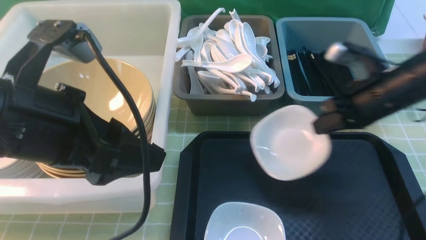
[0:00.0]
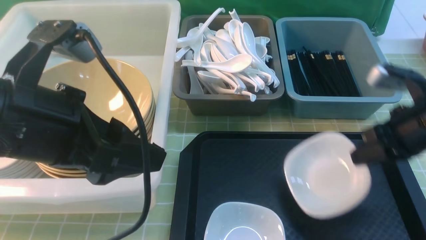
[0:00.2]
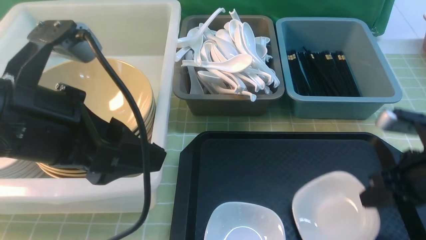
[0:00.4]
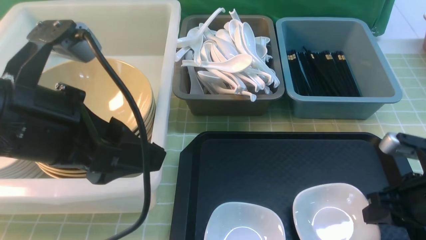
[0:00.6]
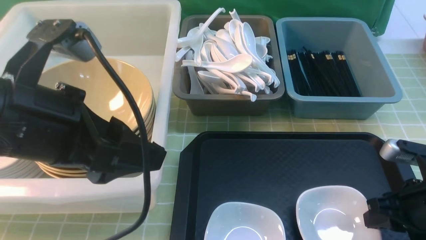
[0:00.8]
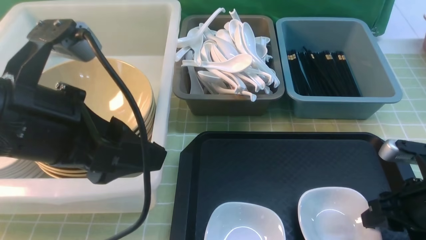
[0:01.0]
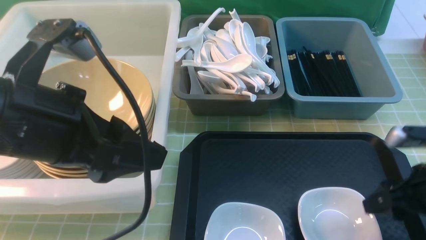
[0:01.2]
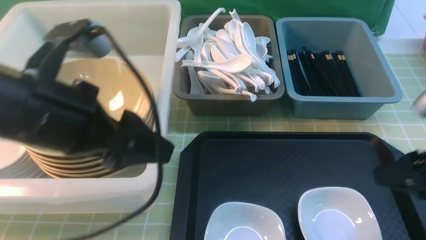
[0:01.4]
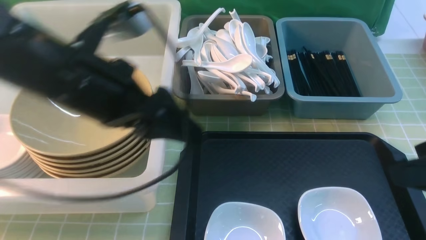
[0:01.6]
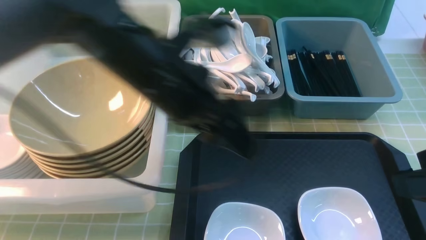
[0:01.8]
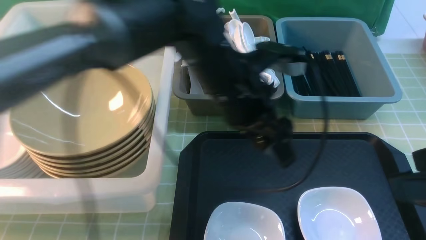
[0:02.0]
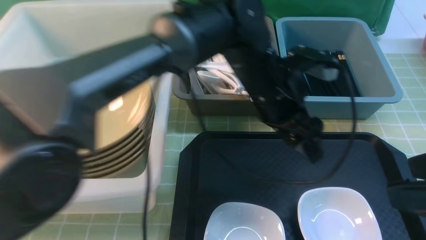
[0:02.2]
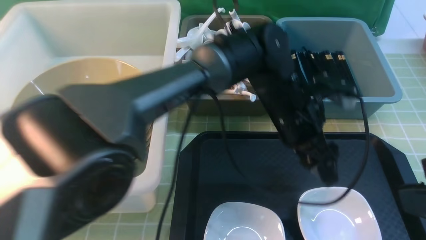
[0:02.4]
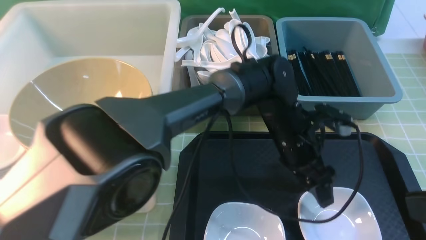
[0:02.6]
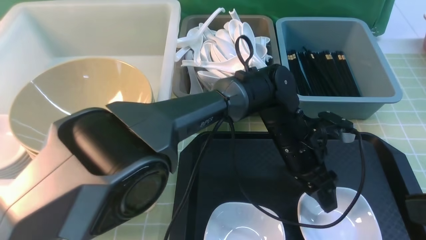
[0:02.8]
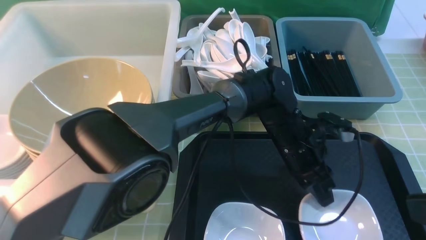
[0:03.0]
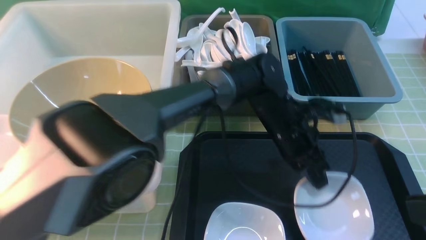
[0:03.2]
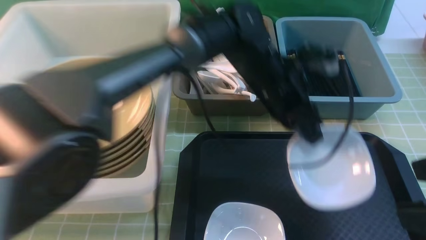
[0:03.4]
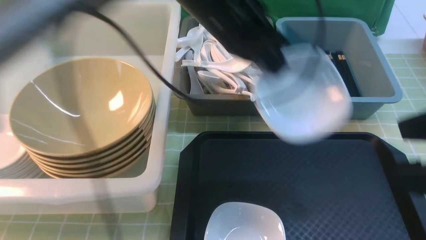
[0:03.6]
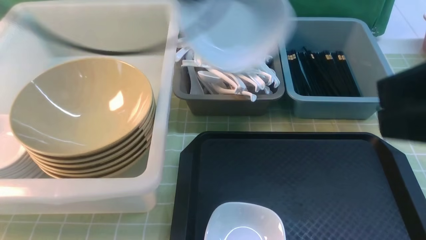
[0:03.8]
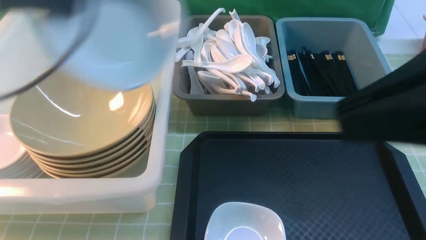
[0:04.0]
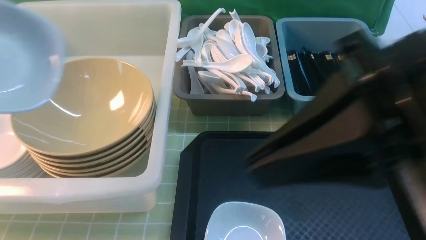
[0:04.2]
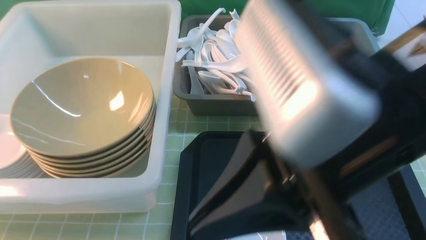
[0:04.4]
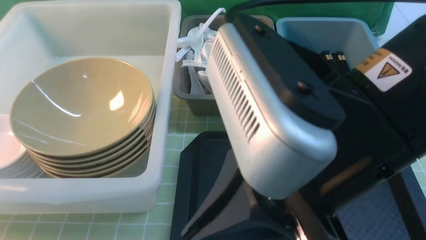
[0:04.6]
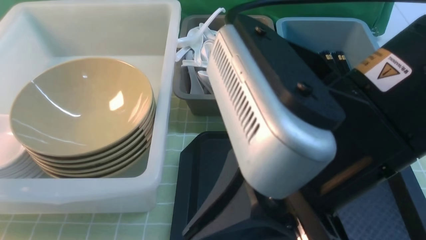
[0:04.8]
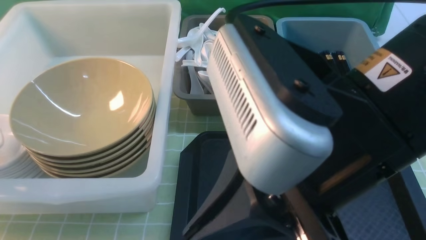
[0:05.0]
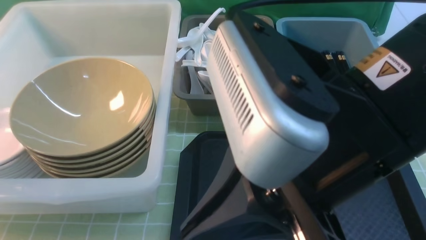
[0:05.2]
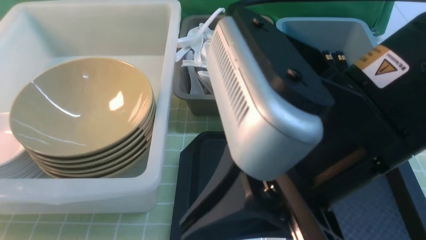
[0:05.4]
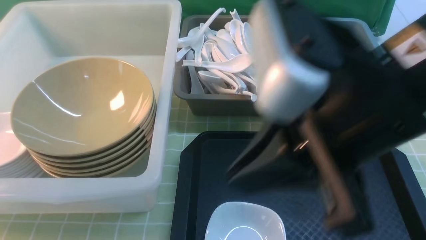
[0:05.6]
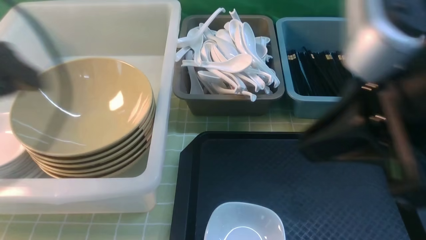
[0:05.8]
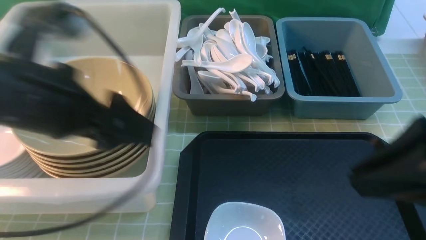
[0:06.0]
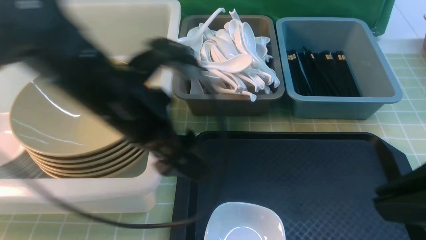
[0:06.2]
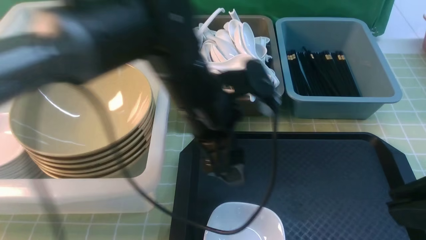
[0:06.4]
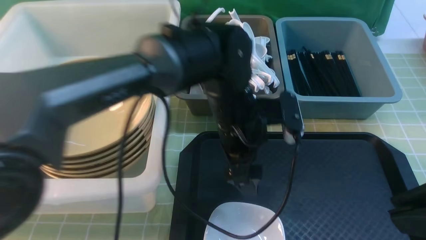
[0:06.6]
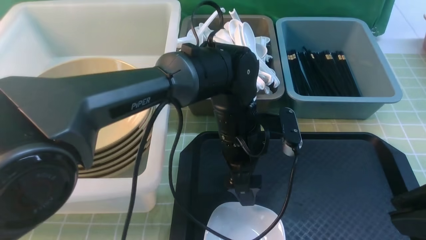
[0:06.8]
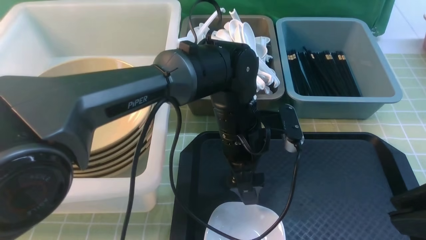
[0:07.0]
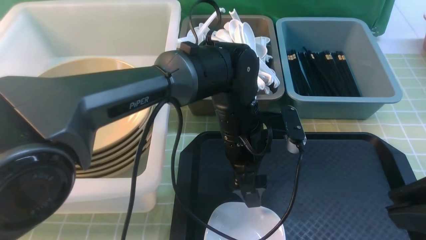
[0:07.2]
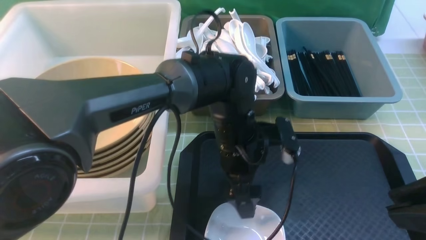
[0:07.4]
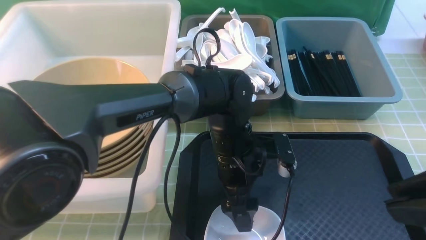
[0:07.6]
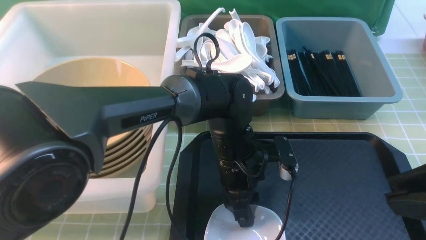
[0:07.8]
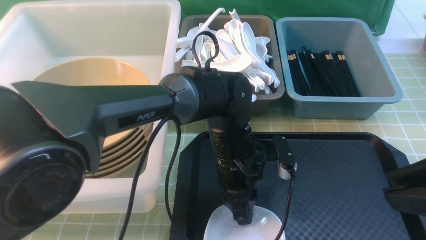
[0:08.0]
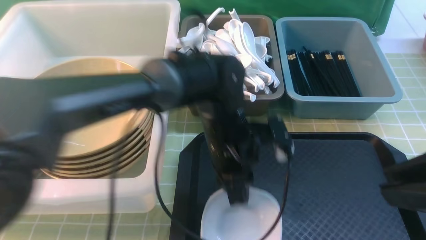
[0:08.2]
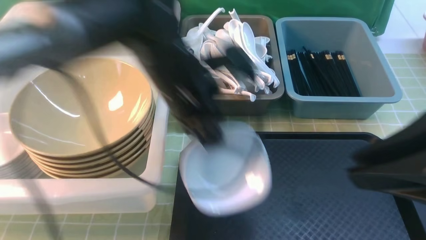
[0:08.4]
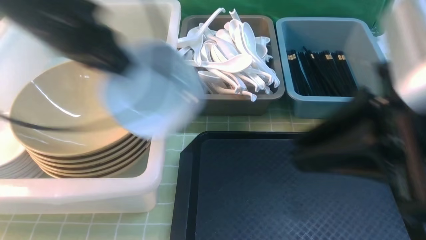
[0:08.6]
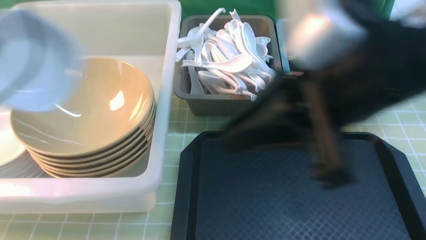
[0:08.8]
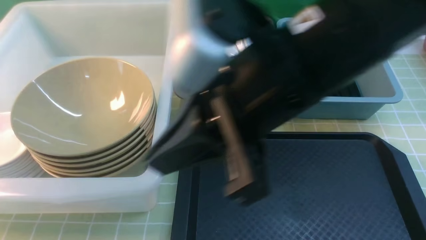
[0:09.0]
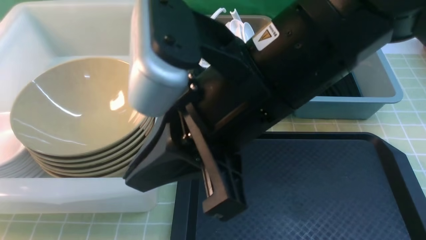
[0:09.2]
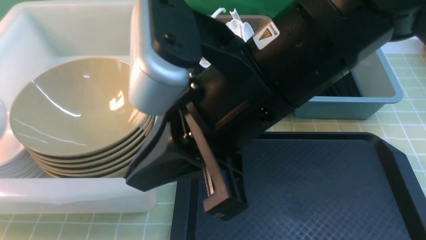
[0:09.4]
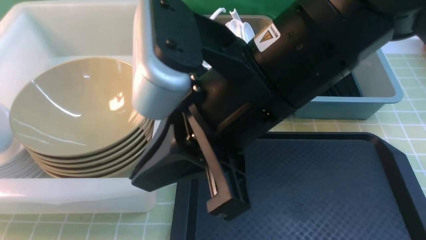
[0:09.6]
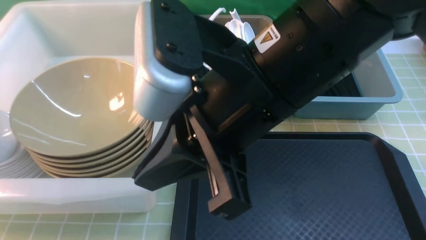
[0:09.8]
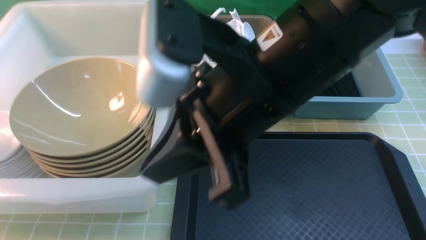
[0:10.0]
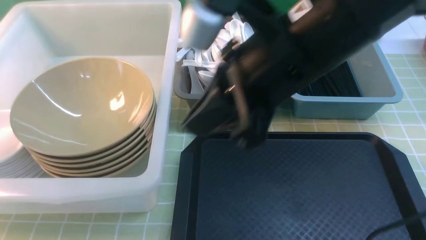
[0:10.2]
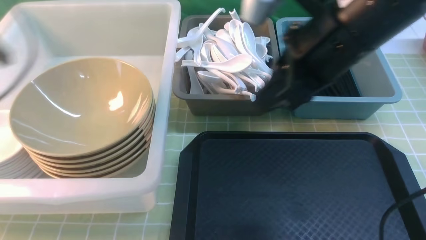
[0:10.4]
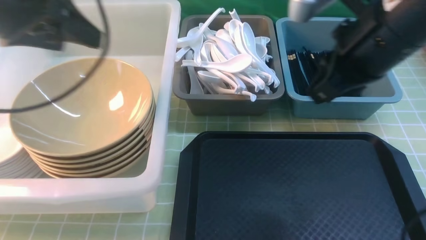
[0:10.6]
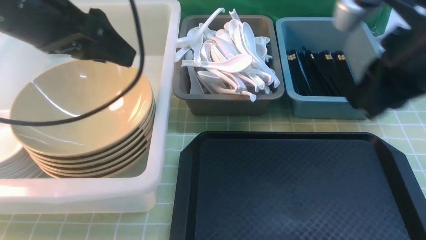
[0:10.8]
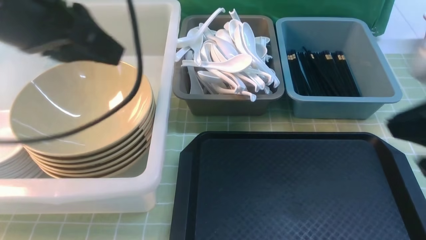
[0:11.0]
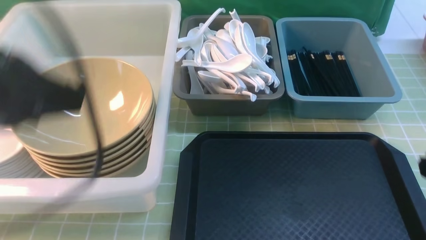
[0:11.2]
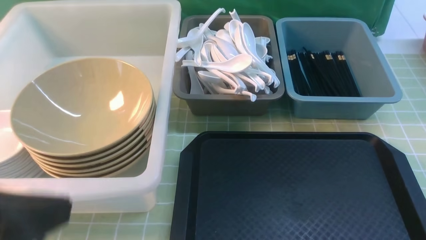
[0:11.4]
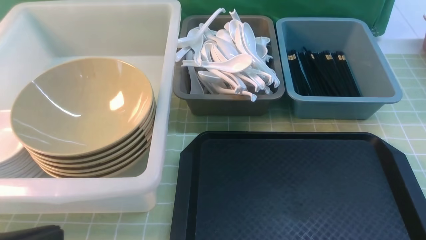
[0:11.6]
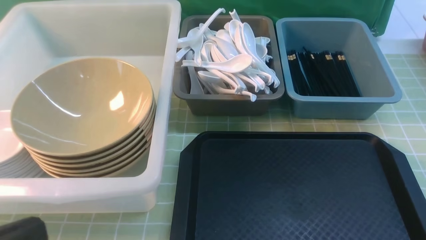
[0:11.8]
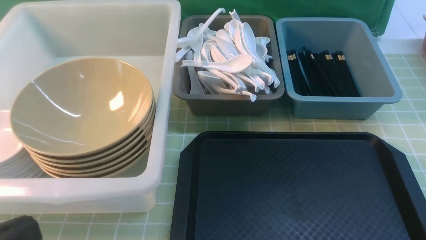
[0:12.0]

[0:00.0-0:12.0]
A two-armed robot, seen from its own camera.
Task of the whole recording: on green table put chopsticks spoon bowls plates into blue grey white boxes.
Step, 0:00.0 to 0:01.0: use the right arm to put the plate on the tray.
Step, 0:01.2 to 0:03.4: use the left arm to grab the plate.
Step, 0:03.6 to 0:05.4: use the left arm to put the plate into the large storage box on the left.
Step, 0:05.6 to 0:08.2: use the left arm to grab the plate.
Step, 0:08.4 to 0:10.6: use the left arm to put the plate into the large storage box on the left.
0:00.0 to 0:01.6: The right gripper goes approximately 20 cm backward and upward, and opens its fingers. Meanwhile the left gripper travels forward and to the right by roughly 10 cm.
0:01.6 to 0:03.0: The right gripper heads backward, covering roughly 5 cm. Meanwhile the left gripper goes roughly 30 cm to the right and downward, and closes its fingers.
0:03.0 to 0:04.4: The right gripper goes roughly 15 cm to the left, and closes up. The left gripper goes roughly 50 cm to the left and upward.
0:04.4 to 0:06.0: The right gripper heads to the right, covering about 10 cm, while the left gripper shifts about 15 cm to the right, and opens its fingers.
0:06.0 to 0:07.6: The left gripper shifts approximately 25 cm to the right and downward.
0:07.6 to 0:09.0: The right gripper travels to the left and forward by about 20 cm, while the left gripper goes about 50 cm to the left and upward, and closes.
0:09.0 to 0:10.4: The left gripper travels to the right and forward by about 10 cm, and opens; the right gripper is displaced forward and to the right by about 10 cm.
0:10.4 to 0:12.0: The right gripper is displaced backward, to the right and downward by roughly 30 cm, while the left gripper moves backward, approximately 30 cm, and closes up.

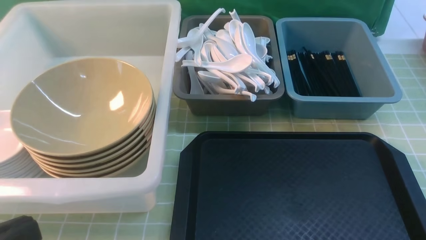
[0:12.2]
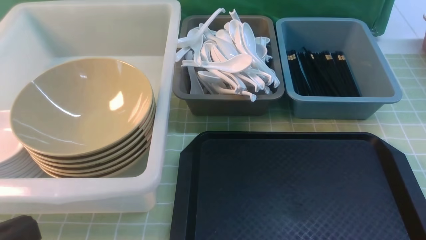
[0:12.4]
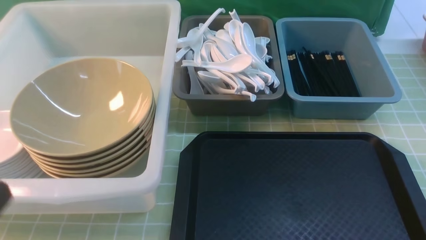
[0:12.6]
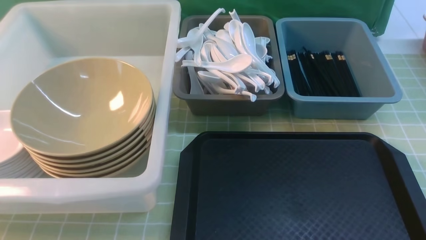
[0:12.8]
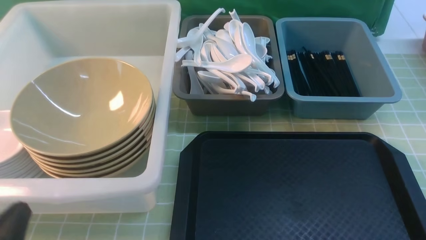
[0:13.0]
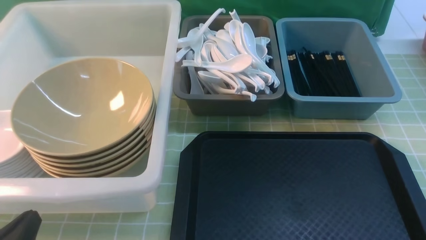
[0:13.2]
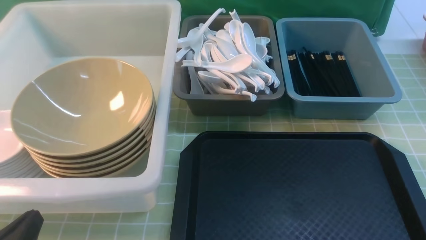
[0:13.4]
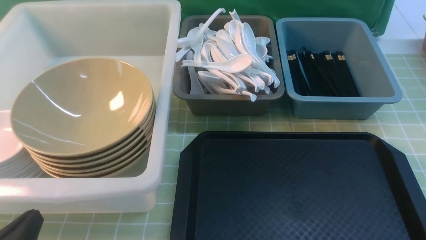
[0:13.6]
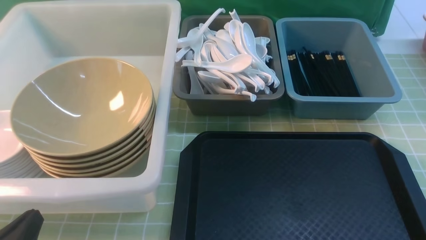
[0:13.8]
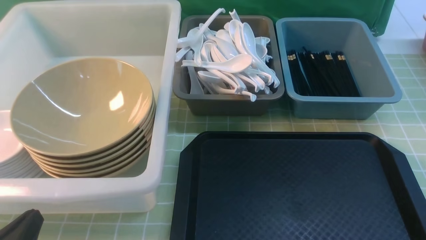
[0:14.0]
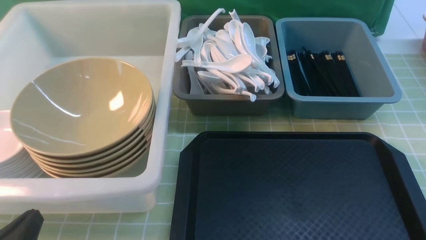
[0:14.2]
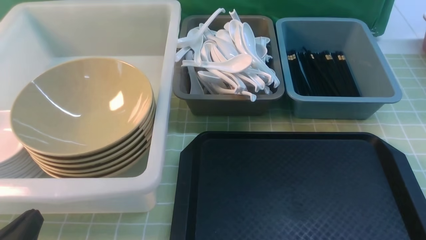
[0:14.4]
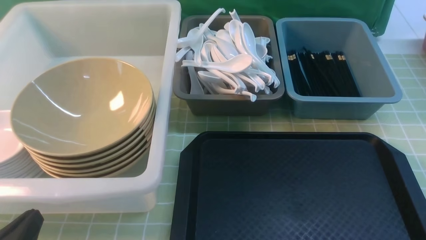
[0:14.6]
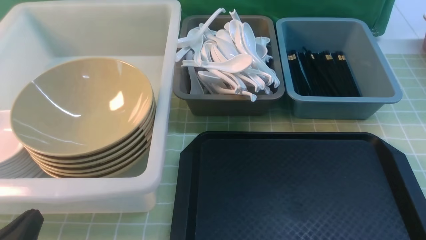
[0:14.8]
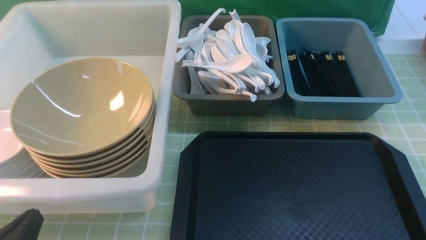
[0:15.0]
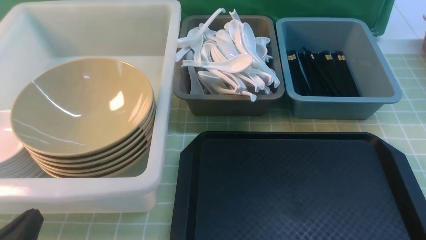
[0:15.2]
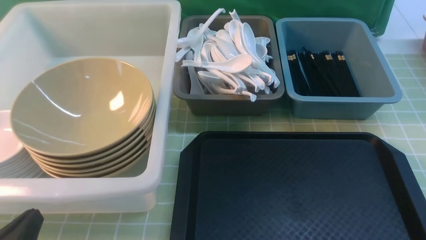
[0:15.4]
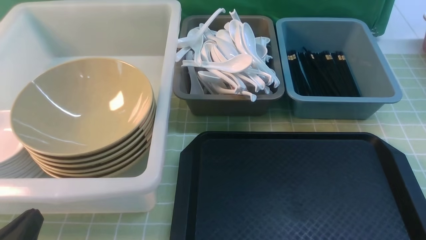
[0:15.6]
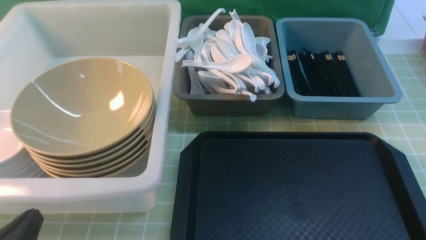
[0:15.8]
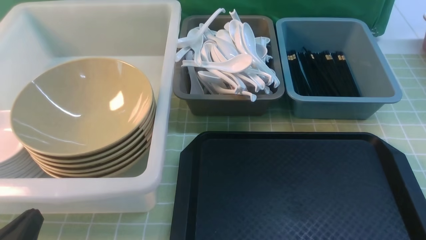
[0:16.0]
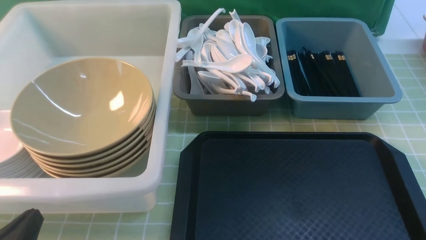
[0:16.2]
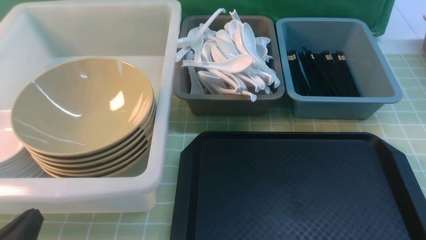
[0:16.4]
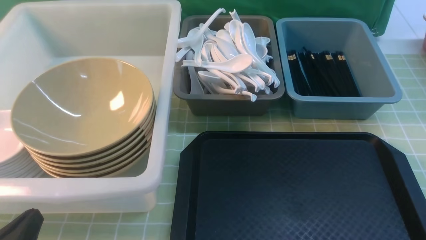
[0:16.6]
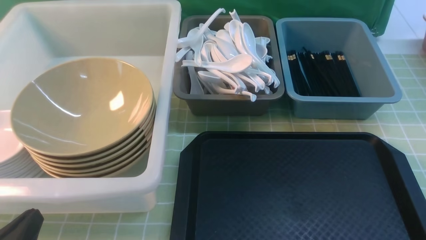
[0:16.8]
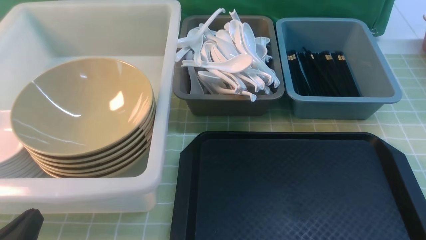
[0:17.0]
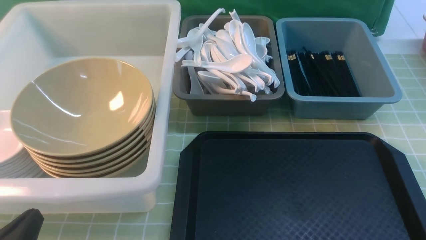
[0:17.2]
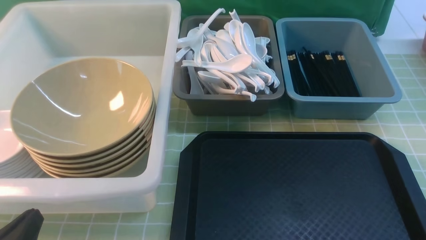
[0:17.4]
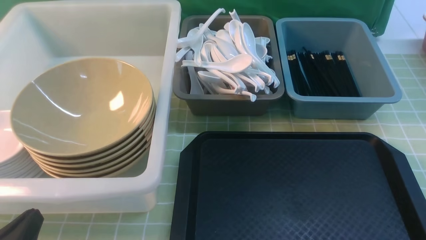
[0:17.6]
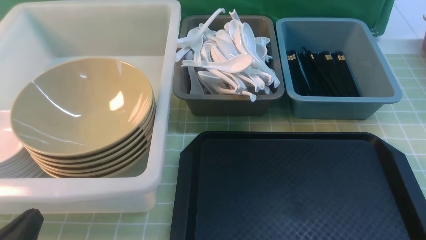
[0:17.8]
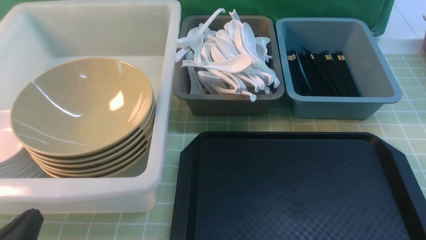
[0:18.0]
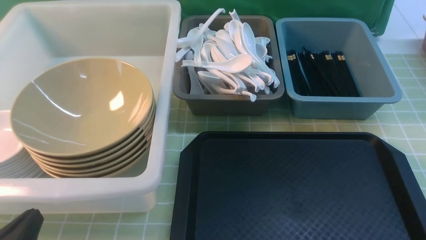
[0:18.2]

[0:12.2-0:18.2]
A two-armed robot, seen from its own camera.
Task of the whole recording: on green table put chopsticks spoon bowls plates into blue grey white boxes.
0:15.2 to 0:18.2: Both grippers stay about where they are.
